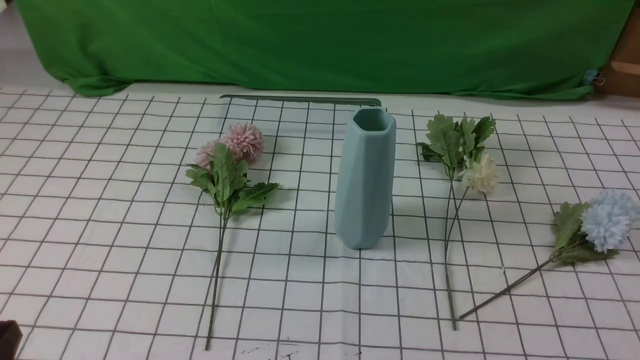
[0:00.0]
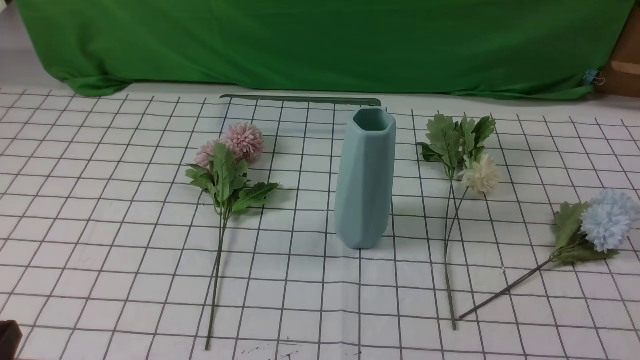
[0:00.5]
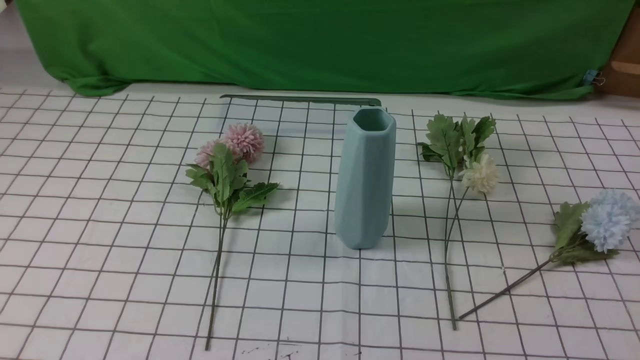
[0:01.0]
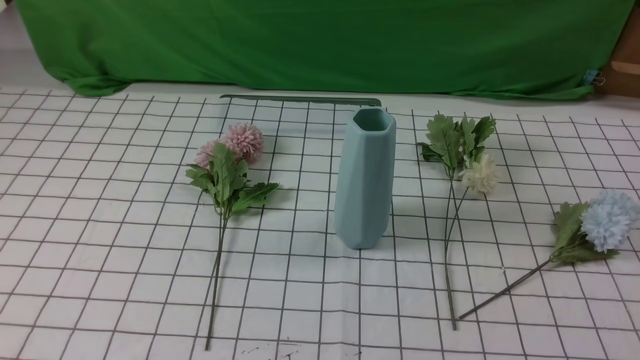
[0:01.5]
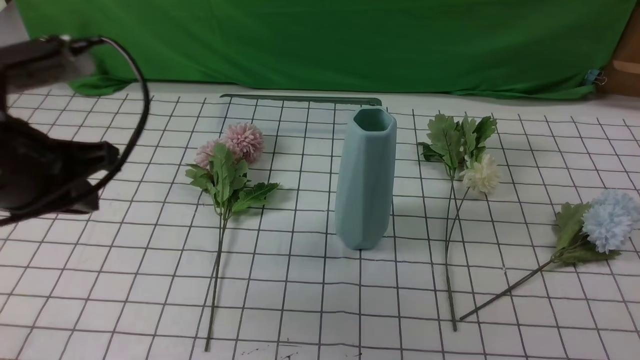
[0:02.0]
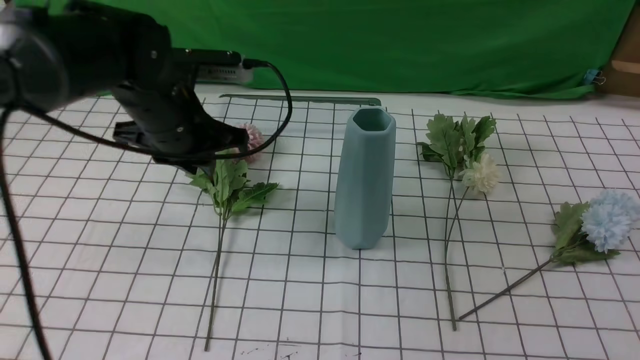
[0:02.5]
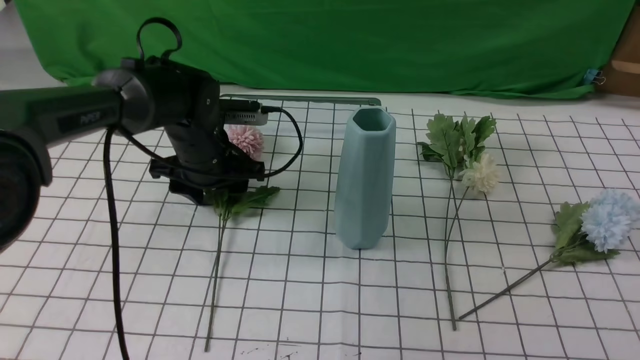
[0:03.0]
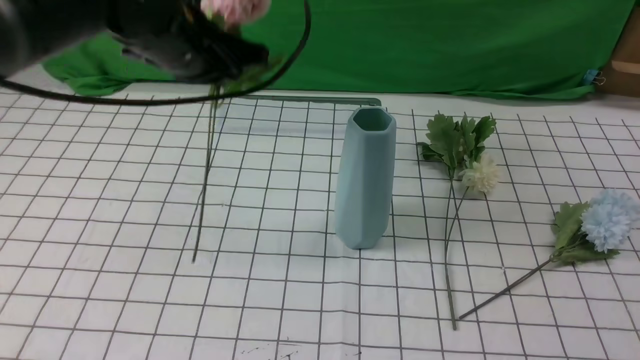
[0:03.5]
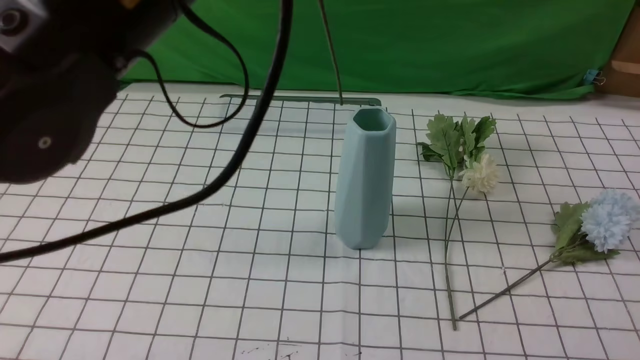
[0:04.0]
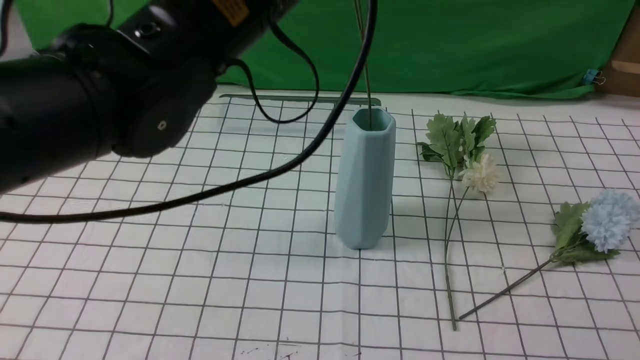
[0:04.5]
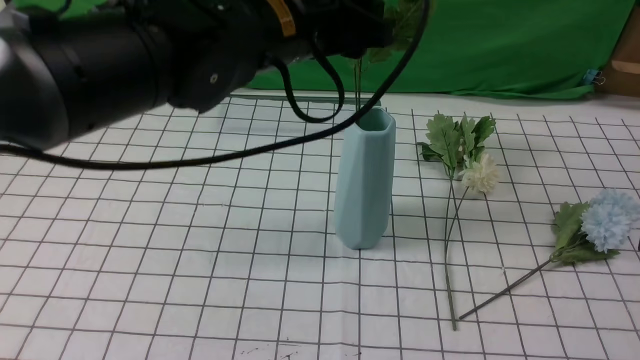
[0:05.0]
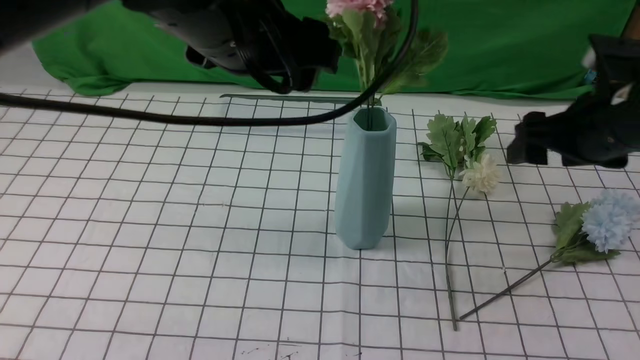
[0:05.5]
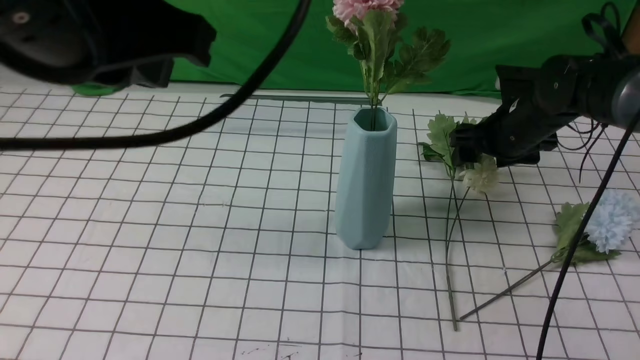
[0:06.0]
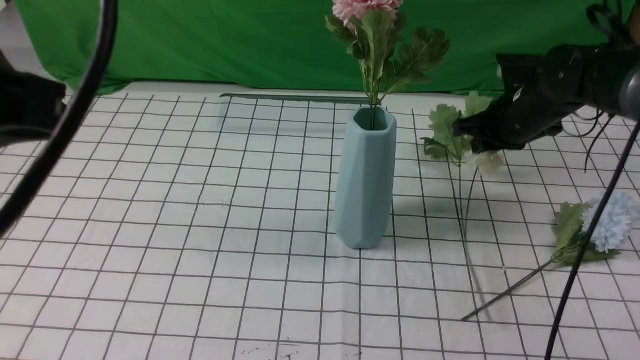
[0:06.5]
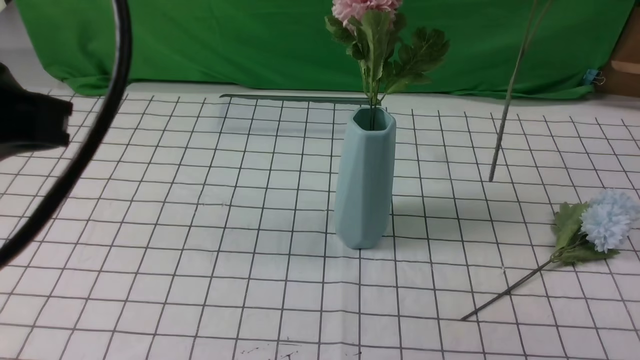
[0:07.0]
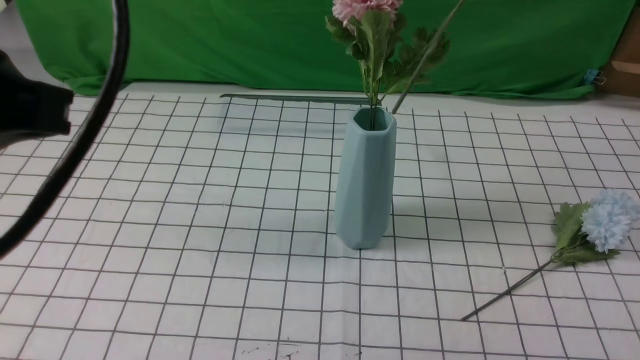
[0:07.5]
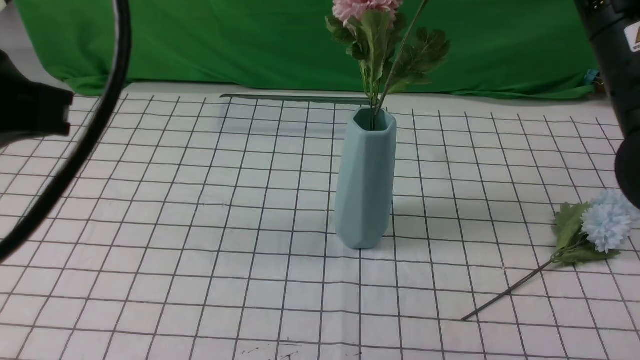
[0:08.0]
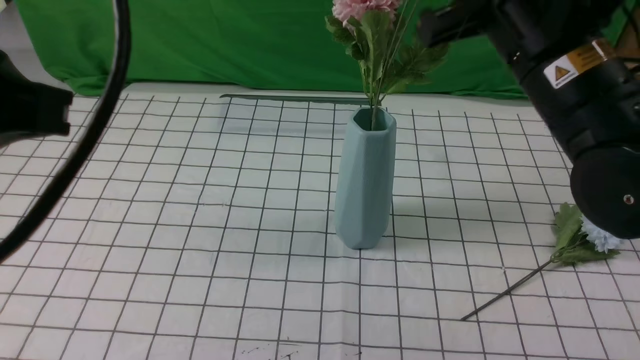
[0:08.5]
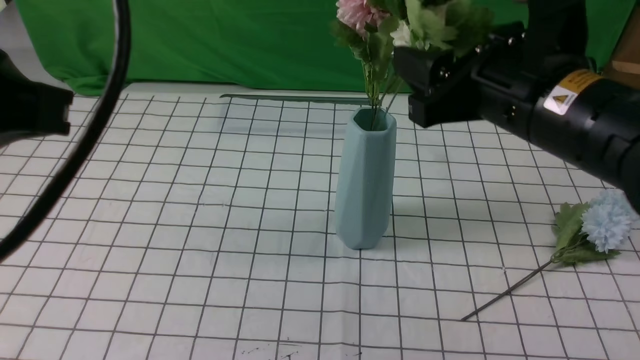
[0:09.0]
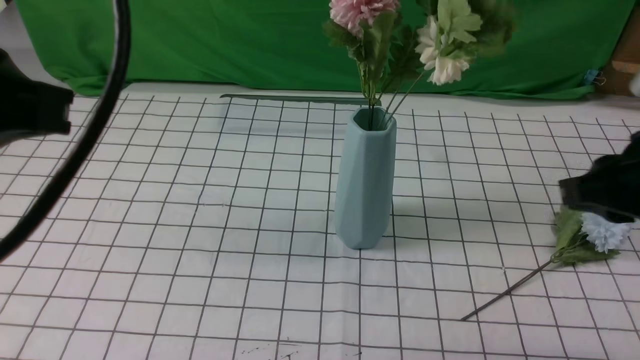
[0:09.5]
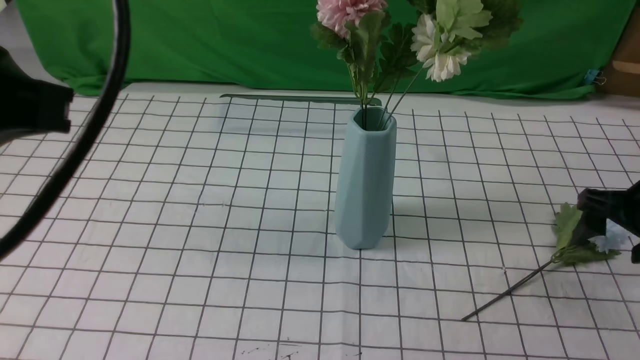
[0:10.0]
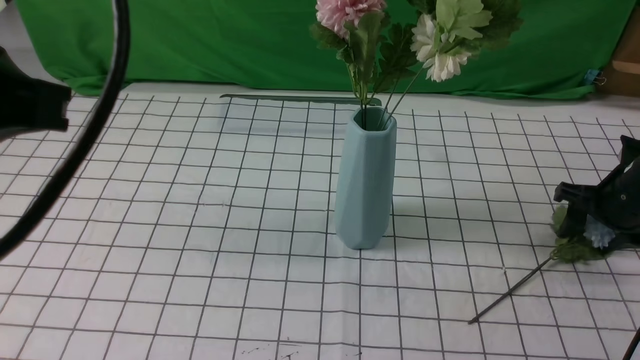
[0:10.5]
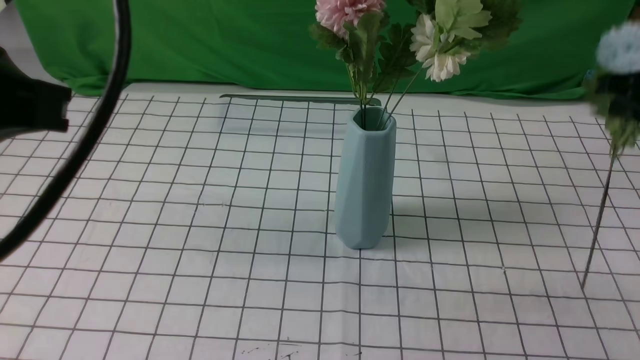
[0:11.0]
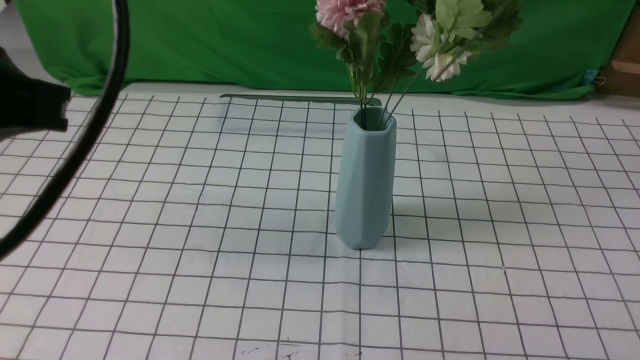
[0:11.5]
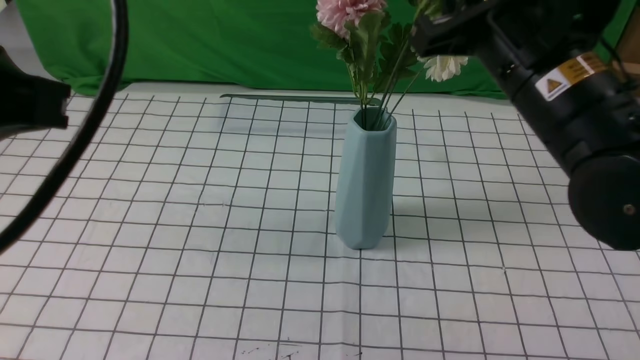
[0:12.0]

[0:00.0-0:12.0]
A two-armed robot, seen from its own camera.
Task of the whole recording: insert the flowers into the vase on the table with the white tablecloth.
Step, 0:00.0 to 0:03.0: use the left arm to grab a bunch of fresh flowers.
Step, 0:03.5 to 0:05.5: use the left arm to insert the flowers into the vase.
Step, 0:06.0 to 0:06.5: use the right arm to grab a bunch of fresh flowers.
Step, 0:07.0 to 0:09.0: use the right arm to insert the flowers into the vase.
Step, 0:09.5 to 0:10.5: use the right arm to grab a bunch of fresh flowers.
0:00.0 to 0:02.0: The right gripper heads upward, covering some 5 cm. Meanwhile the left gripper travels forward and upward by about 25 cm.
0:02.0 to 0:04.0: The left gripper travels to the right and upward by about 15 cm, and opens, then closes once more. The right gripper is displaced forward and upward by about 10 cm, and opens its fingers.
0:04.0 to 0:06.0: The left gripper moves backward, about 5 cm, and opens, then closes once more; the right gripper shifts roughly 35 cm forward.
0:06.0 to 0:08.0: The left gripper goes about 5 cm backward, while the right gripper heads upward and backward, covering approximately 30 cm, and closes up.
0:08.0 to 0:10.0: The right gripper heads downward and to the right, covering roughly 25 cm, and opens up.
0:10.0 to 0:12.0: The right gripper moves up and down over approximately 25 cm, changing direction 2 times, and closes.

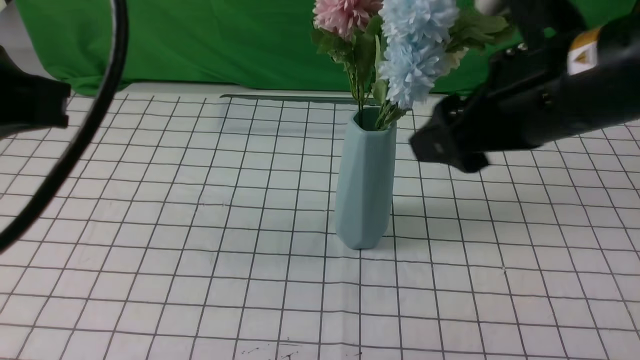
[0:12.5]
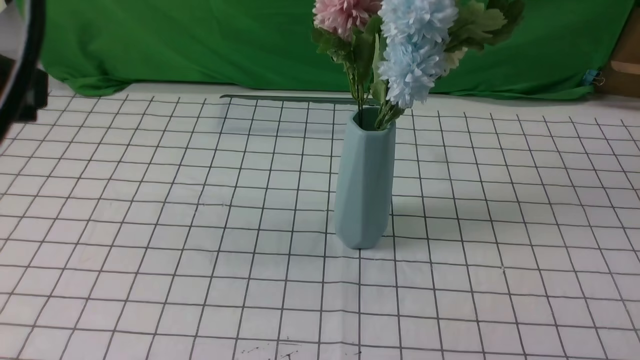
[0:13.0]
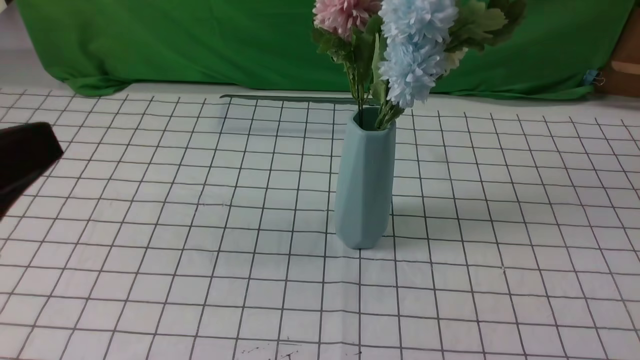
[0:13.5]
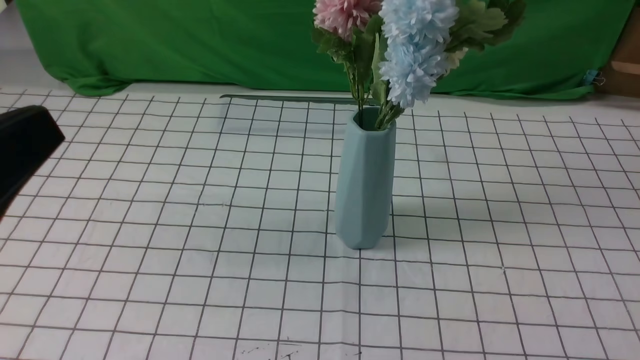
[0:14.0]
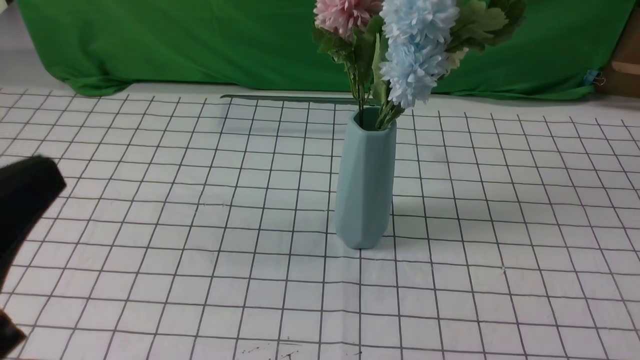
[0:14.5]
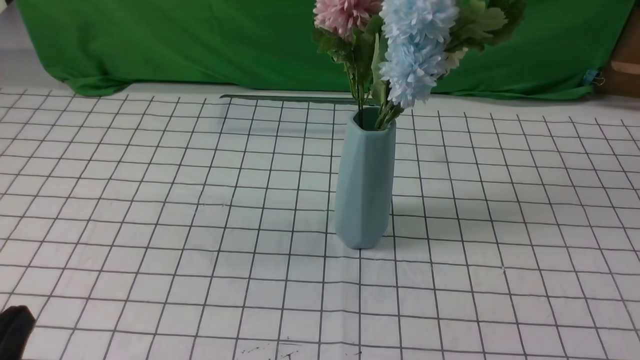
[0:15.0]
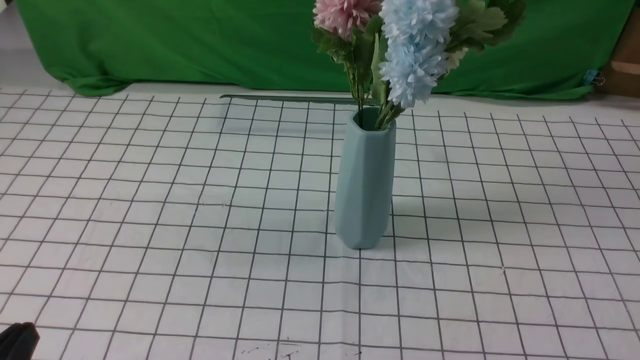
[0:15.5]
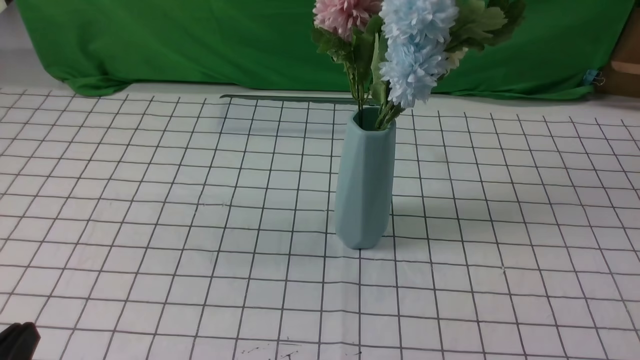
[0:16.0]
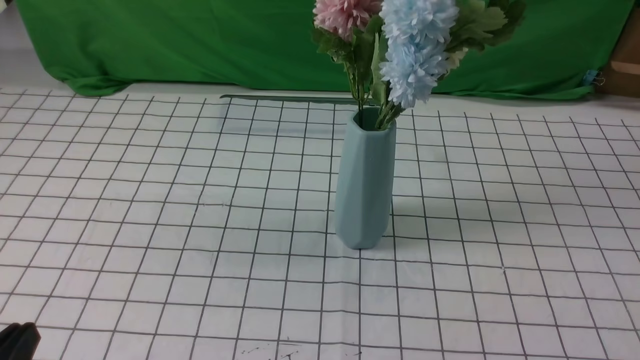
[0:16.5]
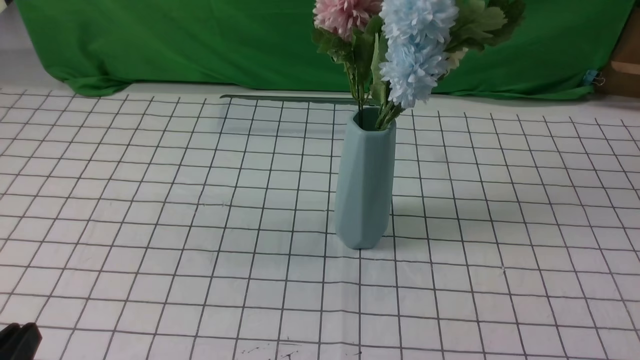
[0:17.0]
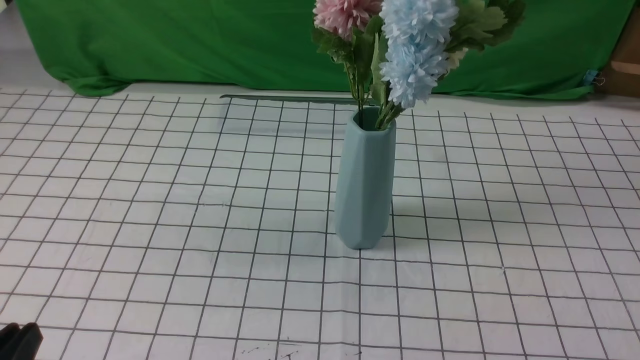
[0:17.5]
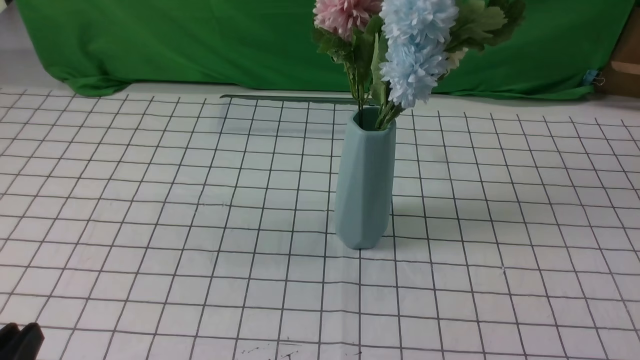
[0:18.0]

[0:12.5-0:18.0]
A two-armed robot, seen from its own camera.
Task of the whole recording: insert the flowers into the vase on the table with the white tablecloth.
0:12.5 to 0:14.5: The left gripper moves downward and backward, roughly 15 cm; the right gripper travels backward and to the right by approximately 25 cm, and closes its fingers.
0:14.5 to 0:16.0: The left gripper travels downward by roughly 15 cm.
